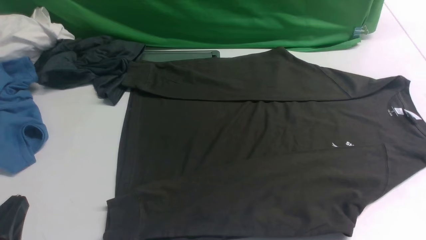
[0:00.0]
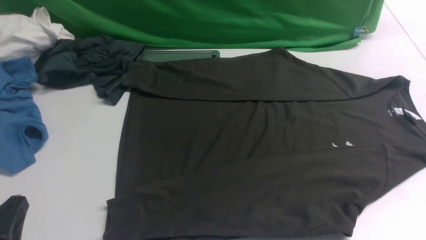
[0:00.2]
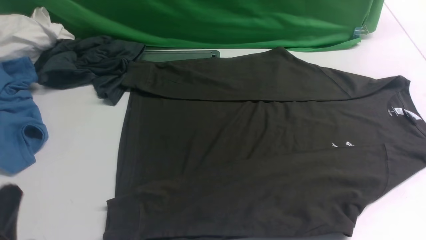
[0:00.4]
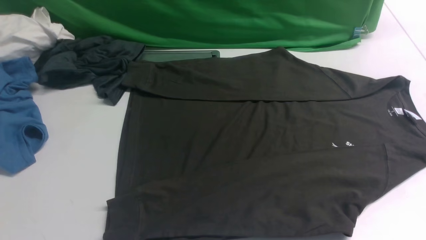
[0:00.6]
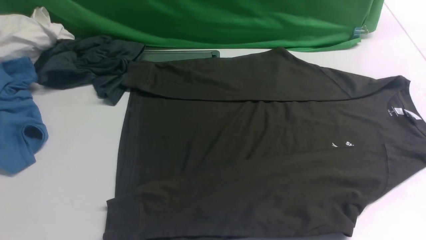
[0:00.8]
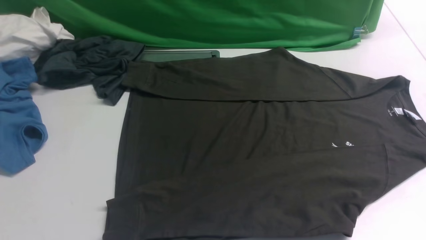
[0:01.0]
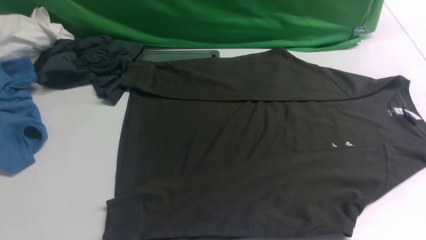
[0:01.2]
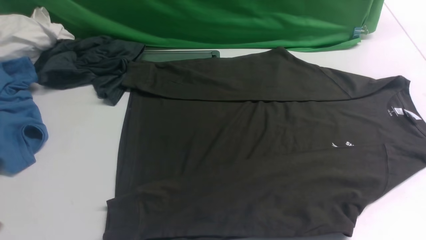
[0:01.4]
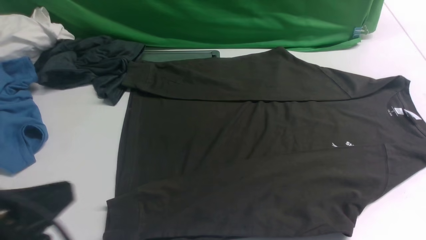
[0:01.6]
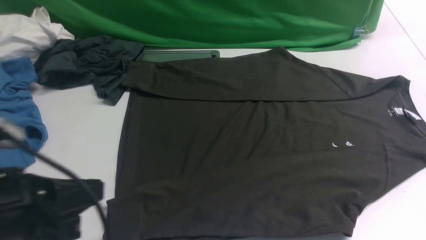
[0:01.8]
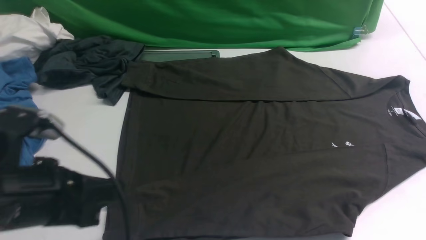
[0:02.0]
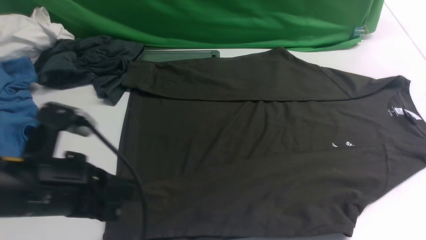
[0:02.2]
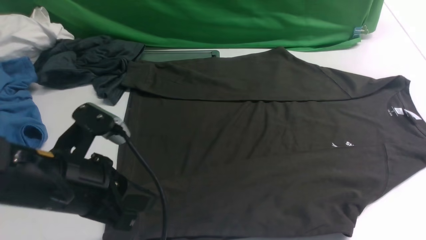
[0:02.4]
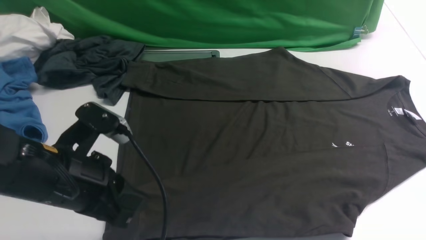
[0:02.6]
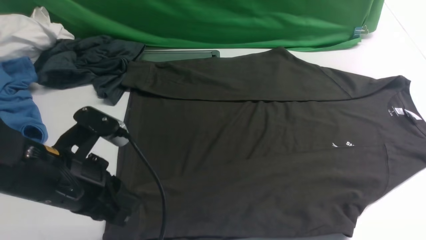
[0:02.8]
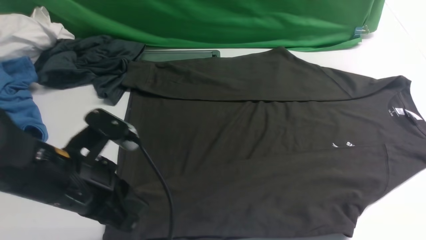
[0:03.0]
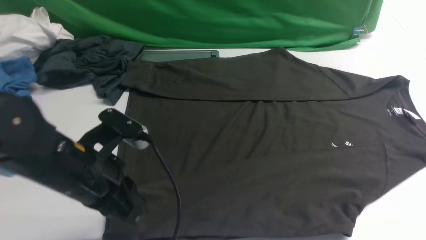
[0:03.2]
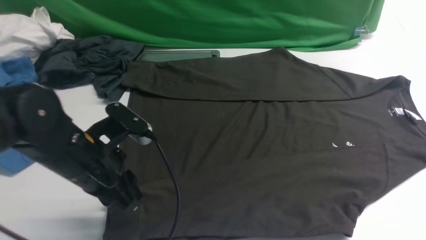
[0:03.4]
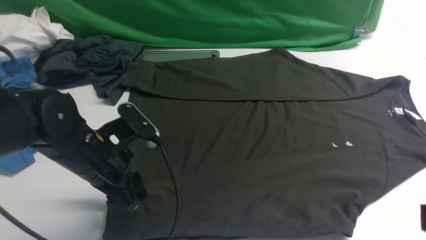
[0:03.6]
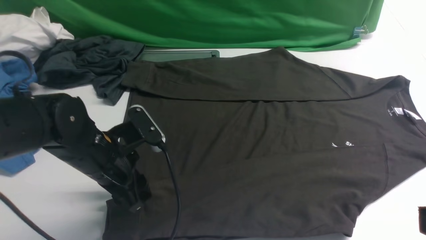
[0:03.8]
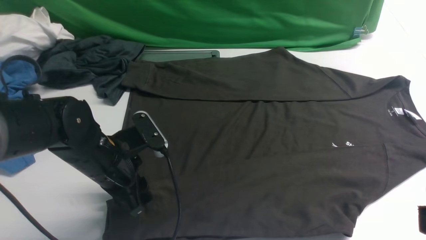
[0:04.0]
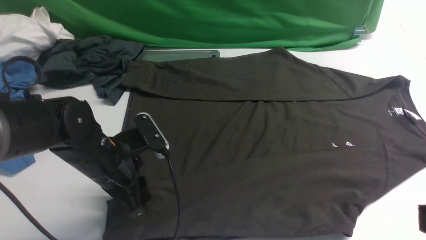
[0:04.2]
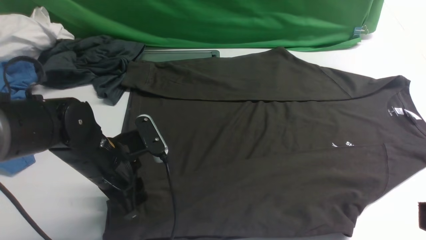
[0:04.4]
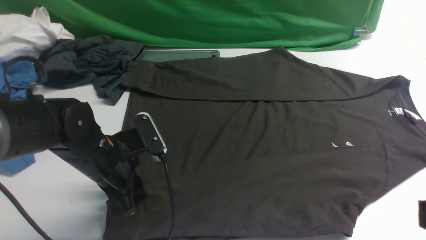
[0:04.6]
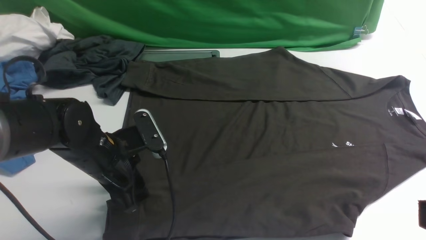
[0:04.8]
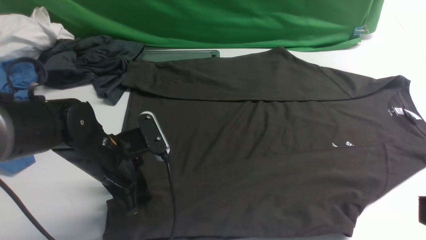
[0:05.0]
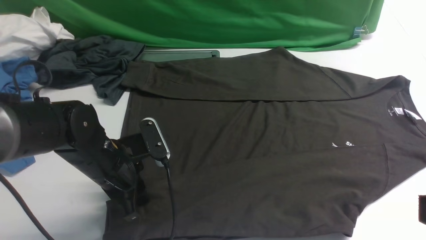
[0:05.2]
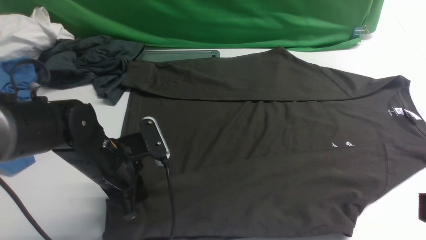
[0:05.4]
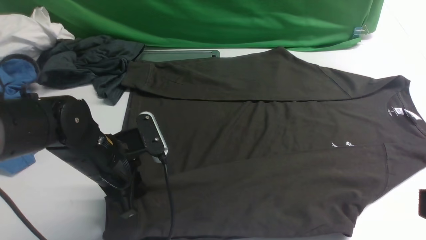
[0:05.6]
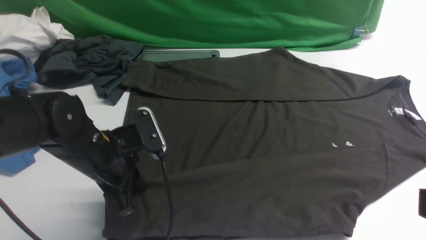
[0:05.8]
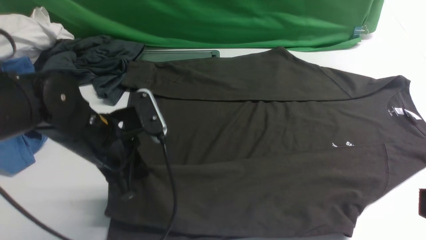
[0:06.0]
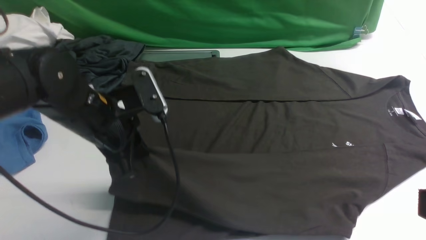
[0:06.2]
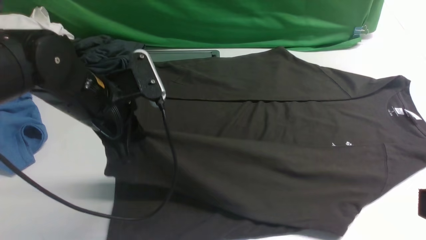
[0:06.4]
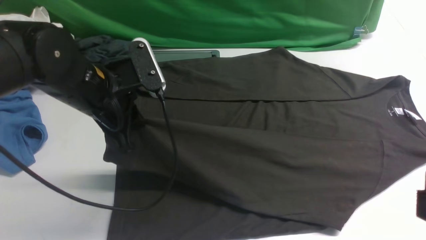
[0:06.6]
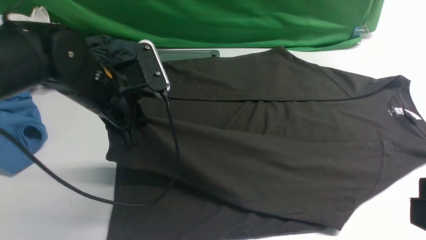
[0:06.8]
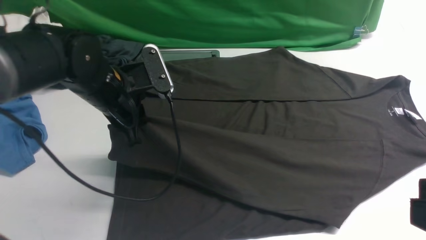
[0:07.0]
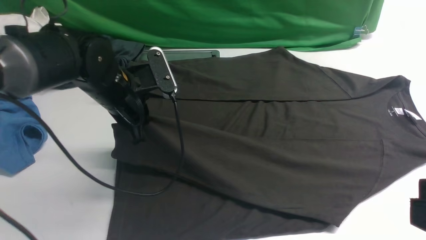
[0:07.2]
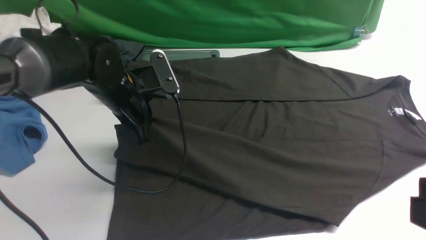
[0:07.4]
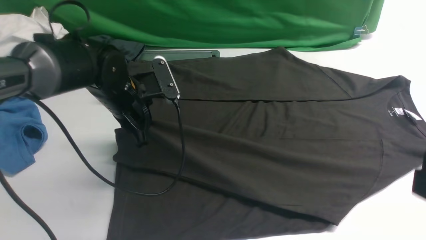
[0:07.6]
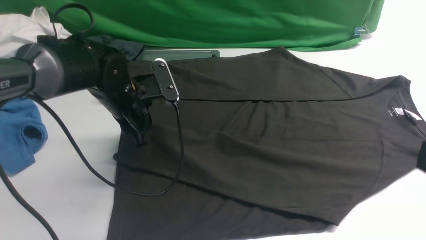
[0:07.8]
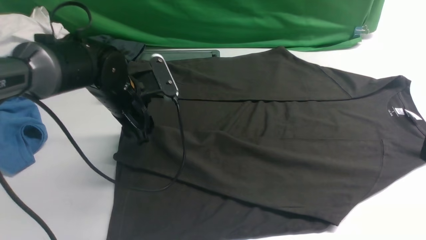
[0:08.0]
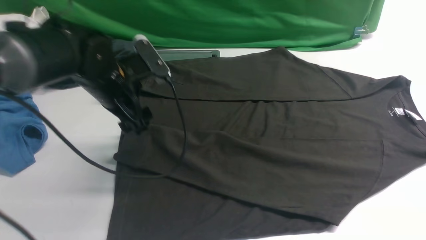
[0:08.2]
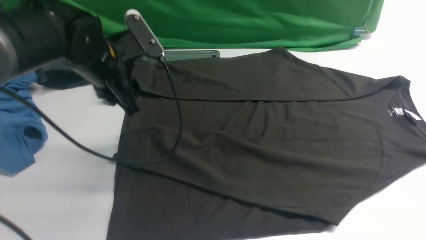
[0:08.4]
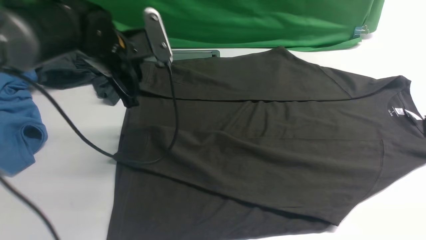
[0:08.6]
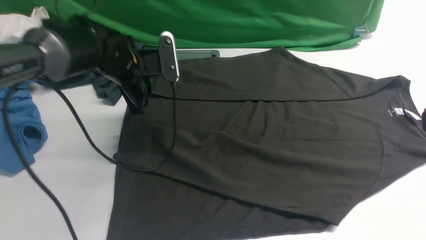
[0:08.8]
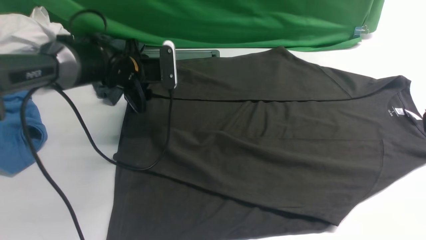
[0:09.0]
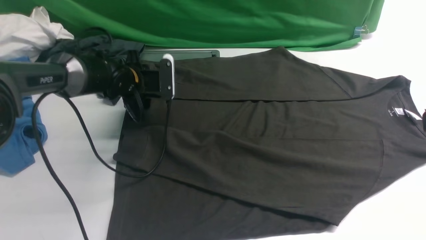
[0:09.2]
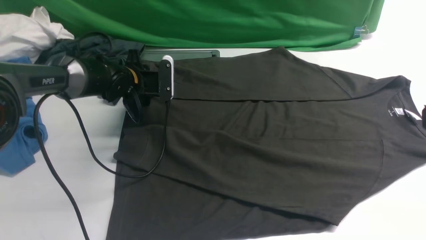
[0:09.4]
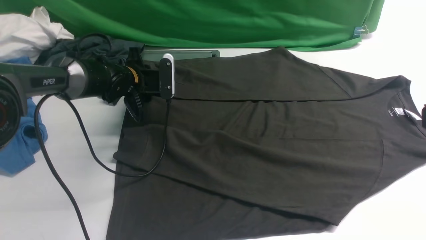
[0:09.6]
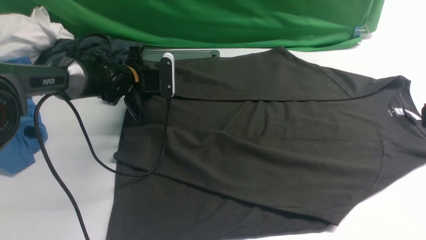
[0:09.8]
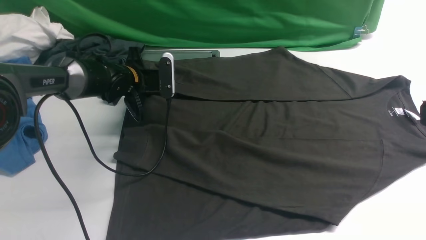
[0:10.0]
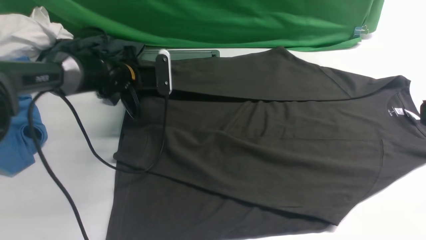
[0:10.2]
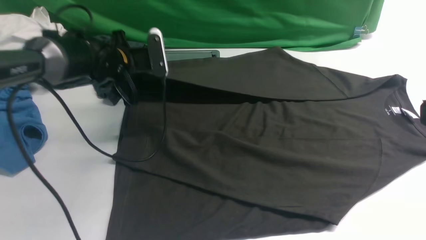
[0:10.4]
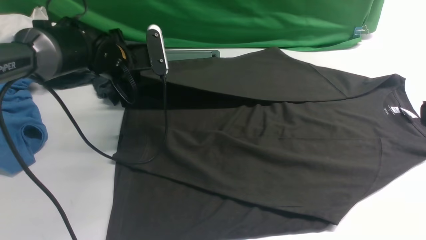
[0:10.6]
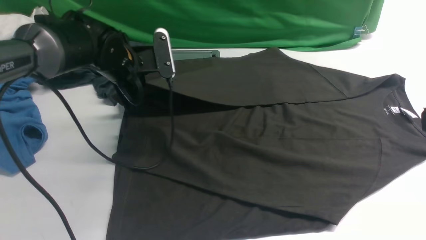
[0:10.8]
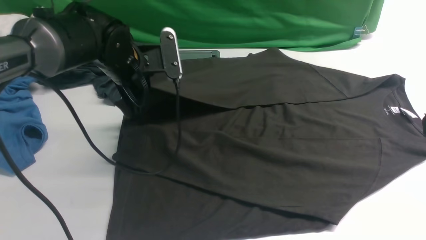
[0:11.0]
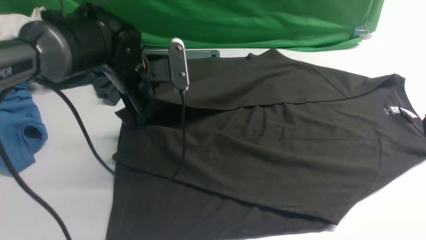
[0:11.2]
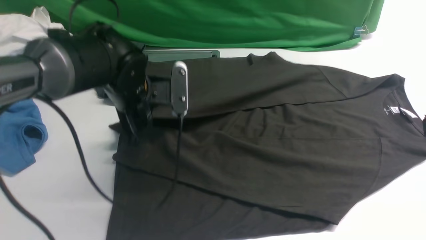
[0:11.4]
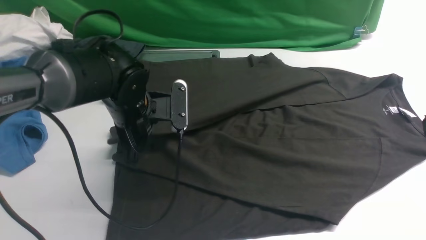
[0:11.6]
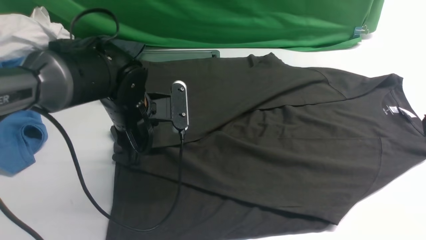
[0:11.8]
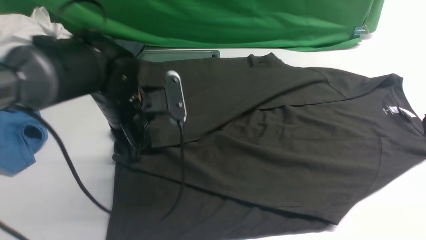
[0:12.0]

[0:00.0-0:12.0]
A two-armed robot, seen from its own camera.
Step, 0.0 to 5.4 s: use the left arm to clamp the cuff closest to it.
Step, 5.8 to 8.2 s: use the left arm to drag and place the cuff at the centered position on the left edge of the fabric.
Step, 8.4 to 10.4 s: use the left arm to clamp the cuff farthest from it.
0.0 to 1.6 s: The left gripper moves upward, some 10 cm.
1.6 to 3.0 s: The left gripper travels forward and downward by about 15 cm, while the right gripper is displaced upward by approximately 10 cm.
3.0 to 4.4 s: The left gripper heads downward and forward, covering roughly 10 cm, and opens up. Meanwhile the right gripper travels upward by about 10 cm.
4.4 to 6.0 s: The left gripper closes up.
6.0 to 7.6 s: The left gripper is displaced forward by approximately 10 cm.
7.6 to 9.0 s: The left gripper travels forward by approximately 10 cm, moves roughly 5 cm upward and comes back, and opens up.
9.0 to 10.4 s: The left gripper closes up.
10.4 to 12.0 s: The left gripper shifts roughly 15 cm backward and to the right, and opens its fingers.

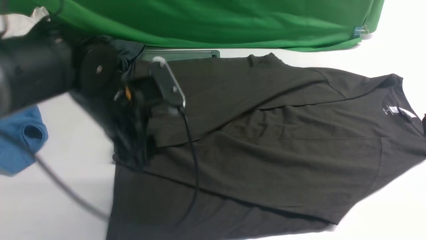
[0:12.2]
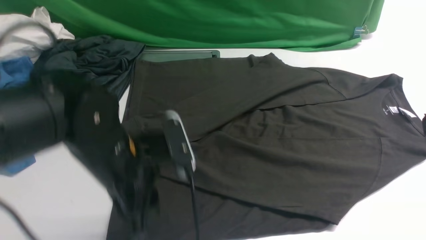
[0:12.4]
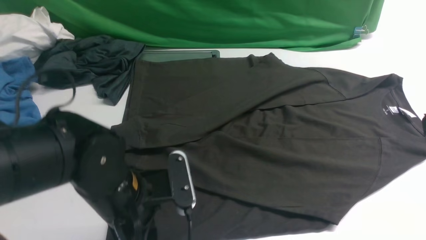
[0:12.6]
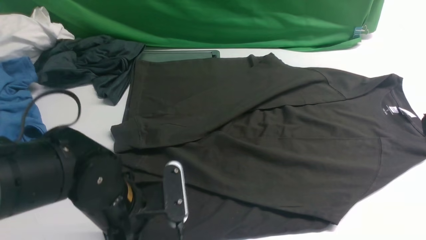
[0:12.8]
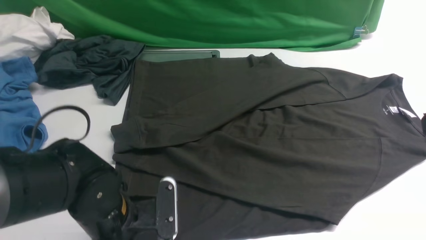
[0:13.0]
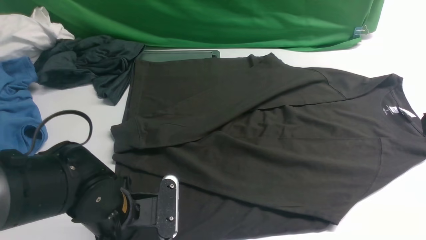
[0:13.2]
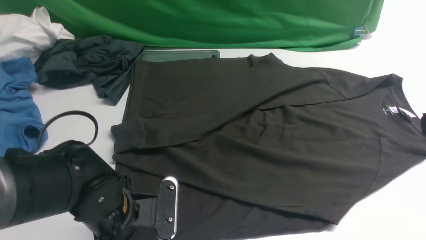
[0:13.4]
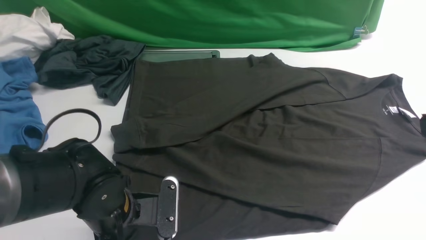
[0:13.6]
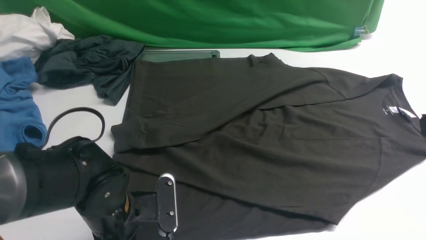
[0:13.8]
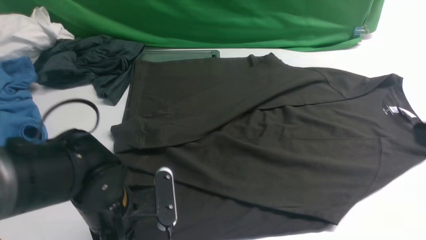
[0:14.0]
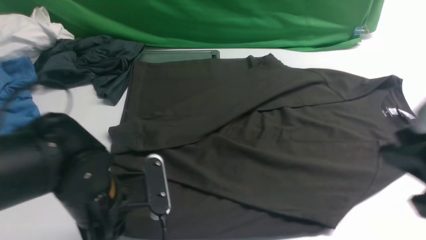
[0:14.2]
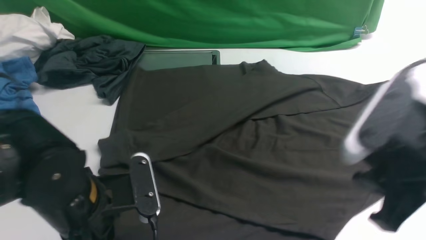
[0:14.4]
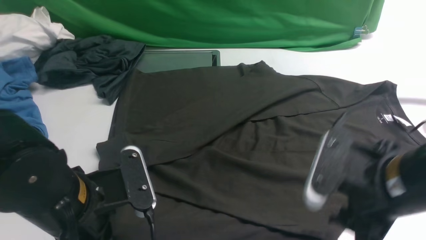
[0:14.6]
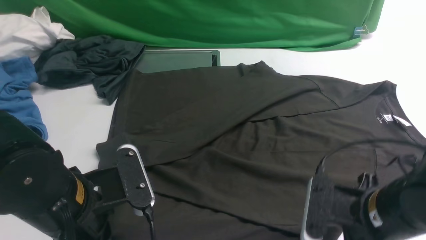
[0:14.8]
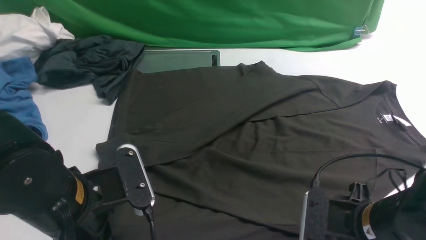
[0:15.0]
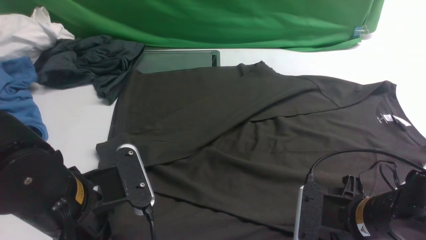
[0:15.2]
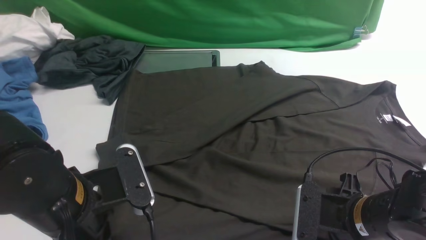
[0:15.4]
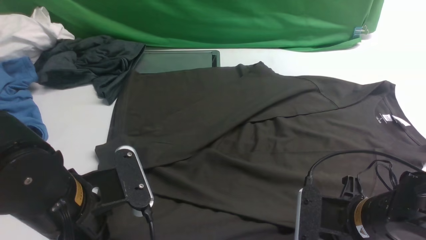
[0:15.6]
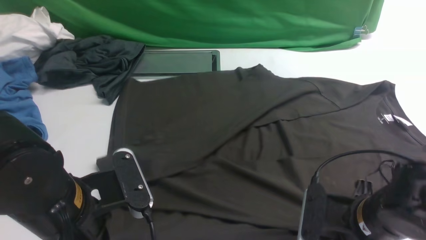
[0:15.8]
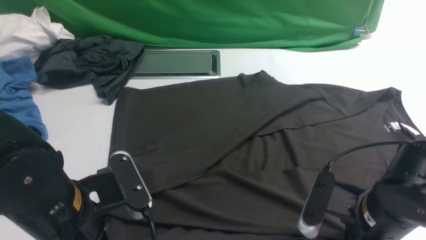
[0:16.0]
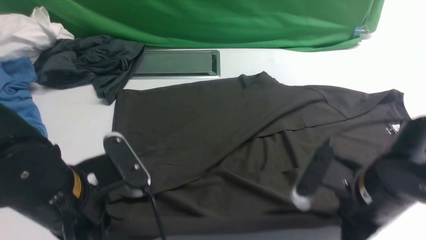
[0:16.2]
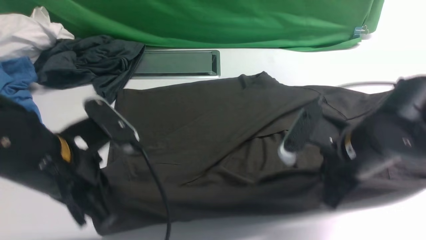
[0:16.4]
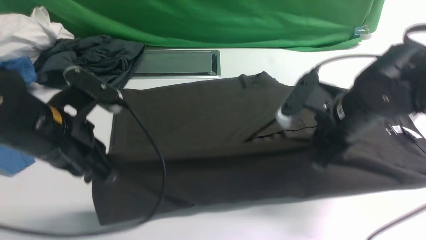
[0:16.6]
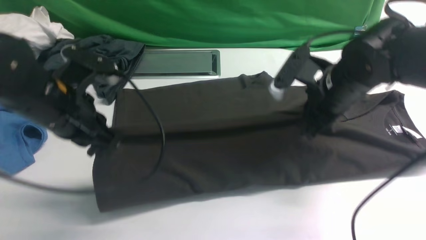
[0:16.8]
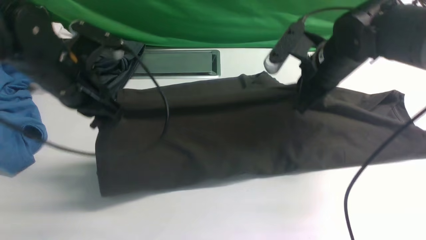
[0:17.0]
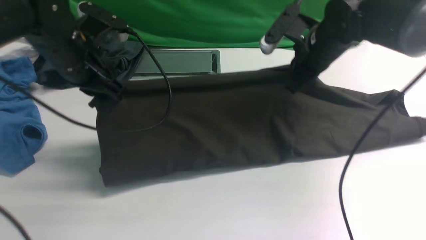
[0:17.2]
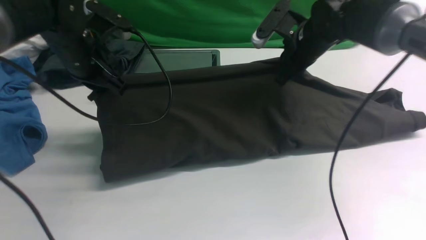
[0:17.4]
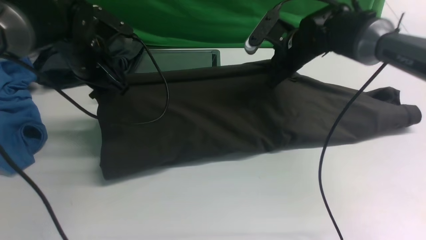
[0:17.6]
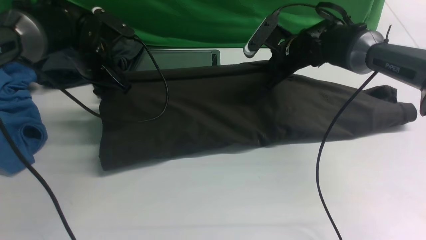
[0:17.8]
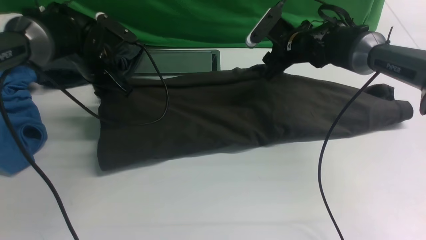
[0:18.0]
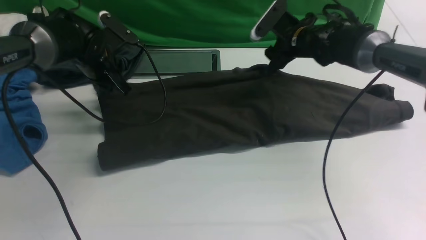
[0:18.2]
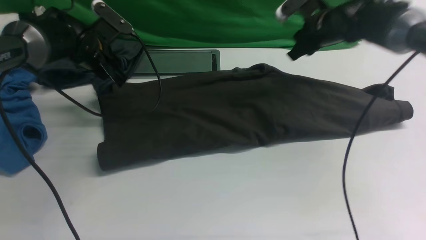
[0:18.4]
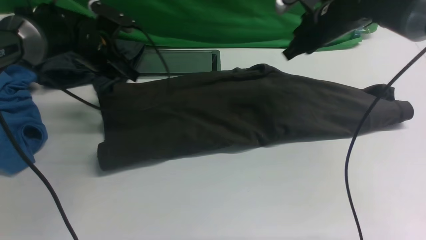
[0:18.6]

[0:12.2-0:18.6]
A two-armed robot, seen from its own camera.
Step, 12.4 to 16.0 s: use both arms simultaneously to clamp the lower edge of the clothing fabric.
12.2 to 13.8 s: The left gripper travels downward and backward by roughly 10 cm, and closes its fingers.
13.8 to 15.4 s: The left gripper heads upward, covering roughly 10 cm, and closes its fingers; the right gripper moves downward, some 20 cm.
15.4 to 17.0 s: The right gripper moves forward and upward, about 25 cm, and closes its fingers, while the left gripper travels forward by some 15 cm.
17.0 to 18.6 s: The right gripper moves forward, approximately 10 cm, and opens, then closes once more; the left gripper moves forward and downward, approximately 15 cm.
